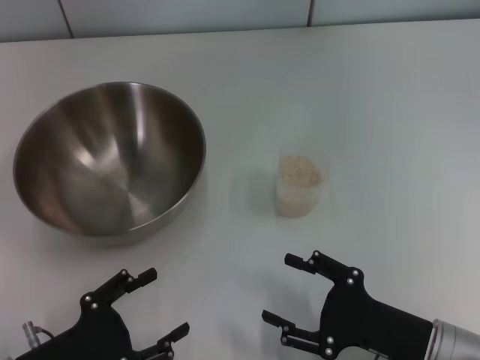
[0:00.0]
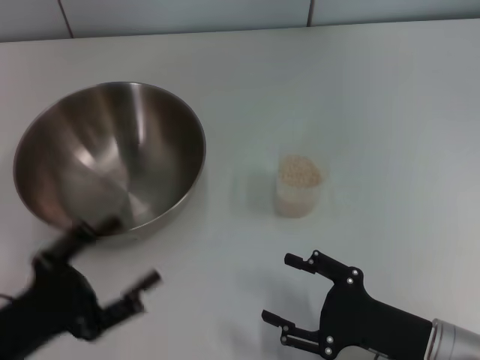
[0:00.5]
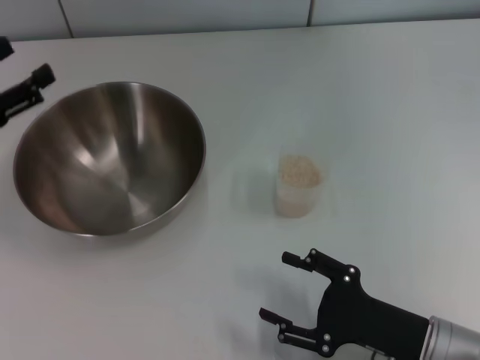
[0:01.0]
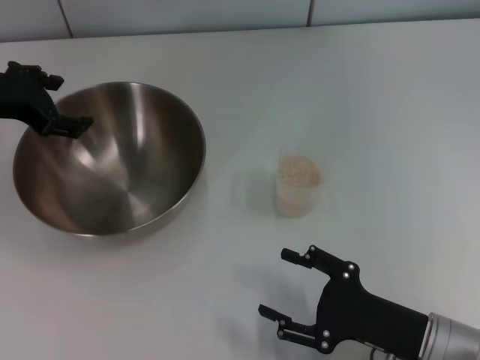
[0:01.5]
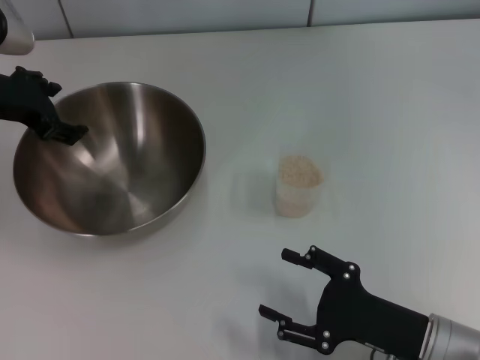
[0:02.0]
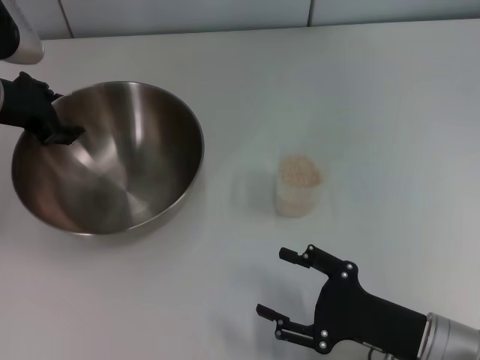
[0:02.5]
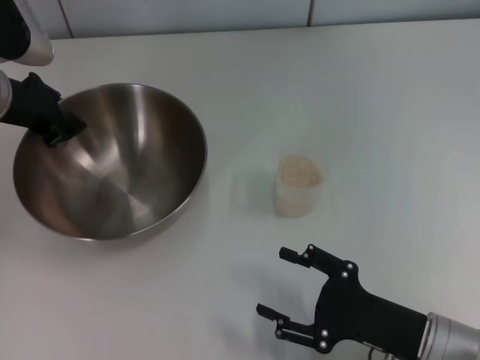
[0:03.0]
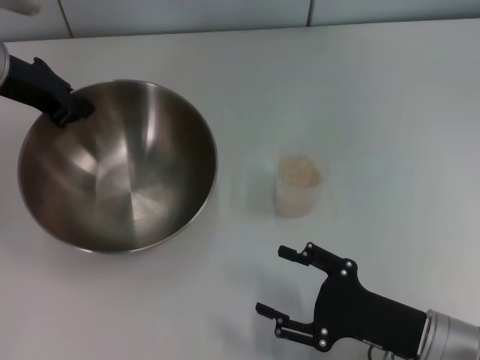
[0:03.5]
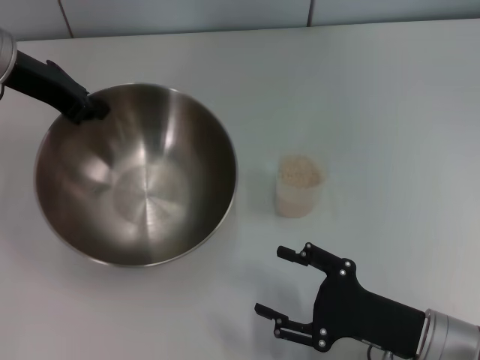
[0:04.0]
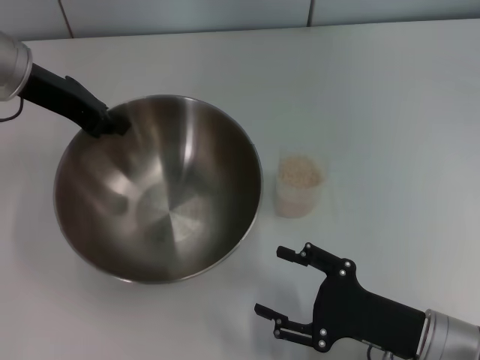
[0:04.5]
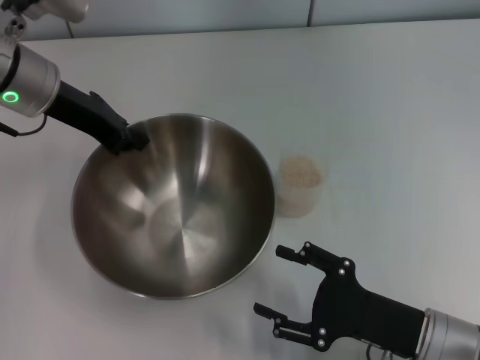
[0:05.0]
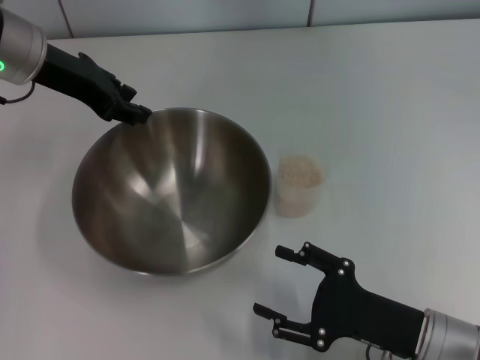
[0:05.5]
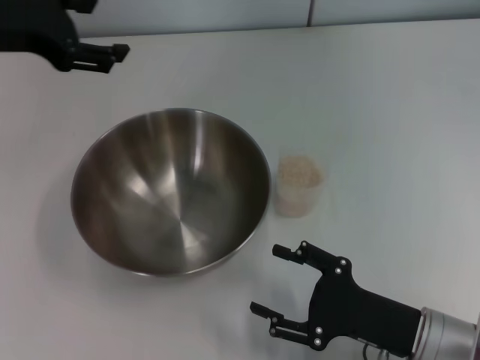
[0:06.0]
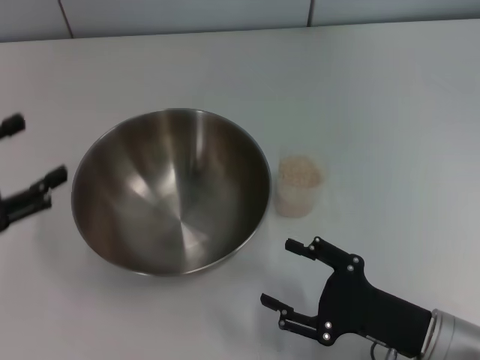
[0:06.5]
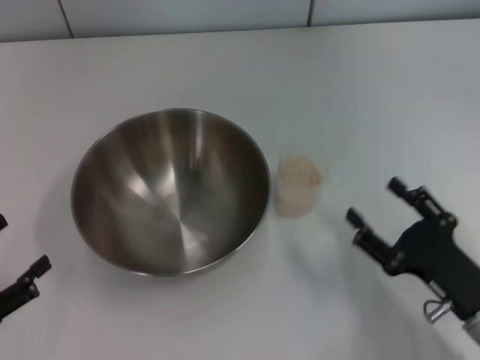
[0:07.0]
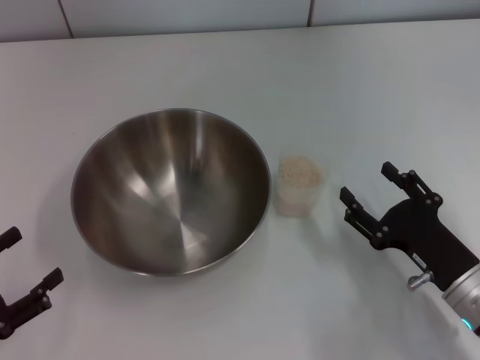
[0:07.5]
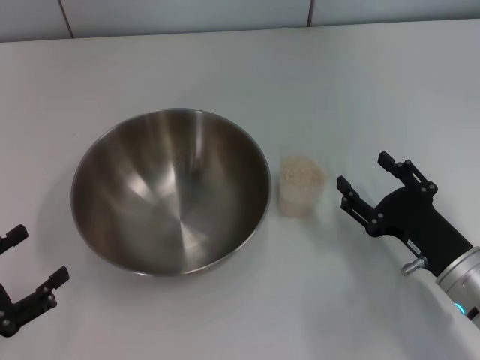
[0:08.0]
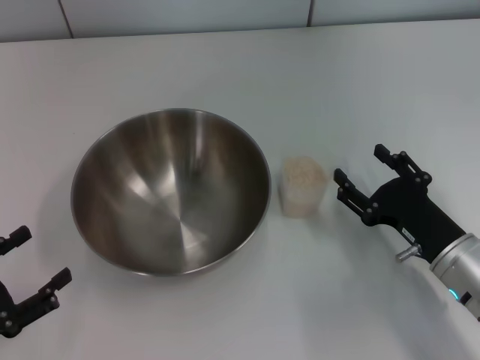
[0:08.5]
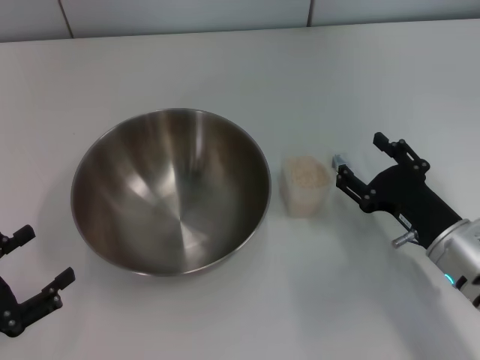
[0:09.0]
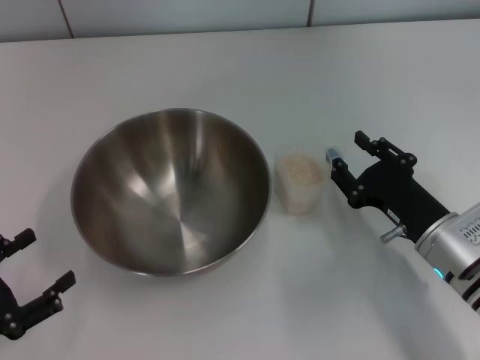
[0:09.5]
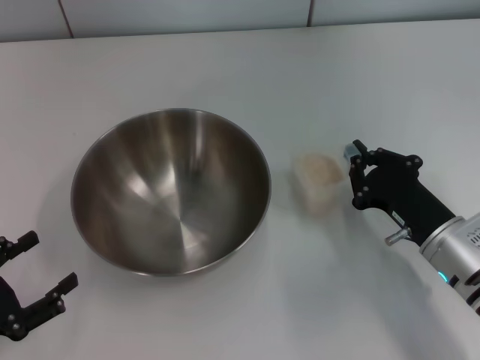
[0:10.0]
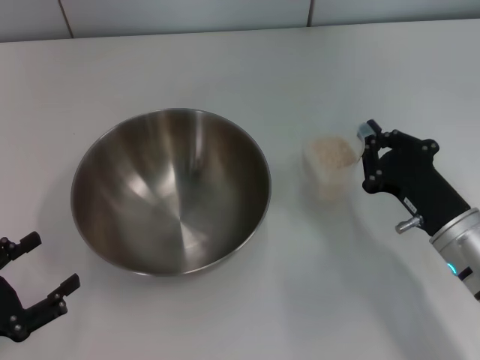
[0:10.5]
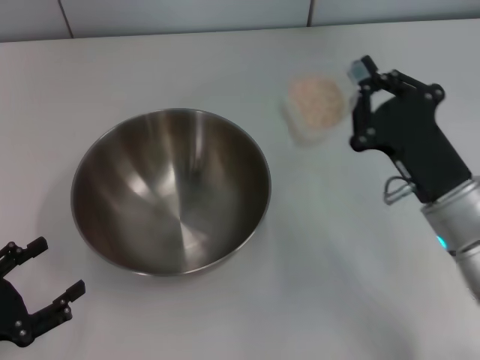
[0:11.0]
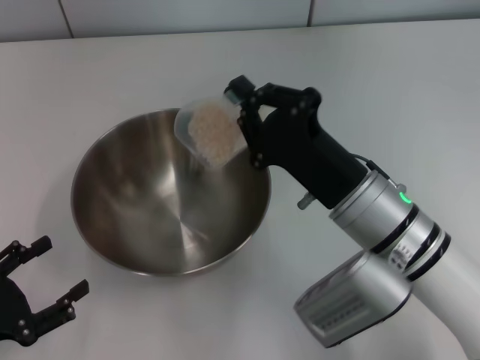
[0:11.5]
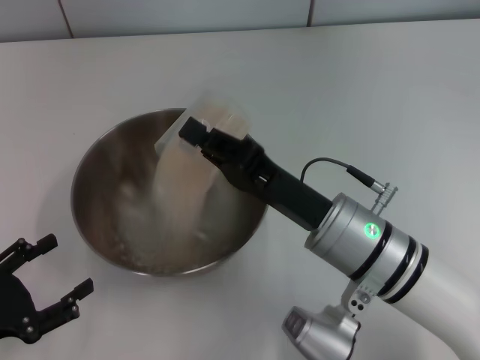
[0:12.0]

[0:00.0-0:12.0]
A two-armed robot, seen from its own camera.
Task of the whole recording: Place the bowl in the middle of the table with one hand and pour the rice from the grain cup into it with the other hand.
Step, 0.0 to 3.5 s: Pick up the bowl with the left gripper.
Step, 4.0 to 5.5 s: Place the bowl in the center of view with the left gripper.
Step, 6.0 to 10.5 s: Pick up the cup with rice in it with the right gripper.
0.0 to 2.0 s: The left gripper shifts some 30 cm forward and upward.
2.0 to 4.0 s: The left gripper closes.
4.0 to 6.0 s: The left gripper is displaced backward by roughly 5 cm, and opens up.
6.0 to 8.0 s: The left gripper shifts roughly 30 cm backward, downward and to the left. The right gripper shifts by about 5 cm.
8.0 to 10.0 s: The right gripper closes.
10.0 to 12.0 s: The right gripper travels to the left and upward by roughly 15 cm.

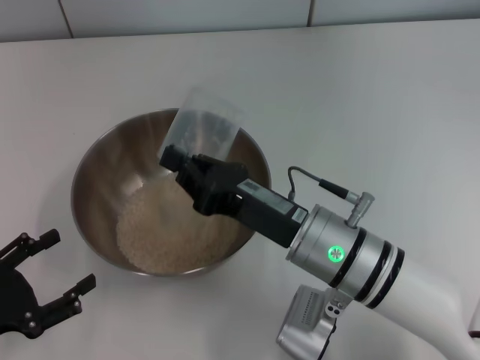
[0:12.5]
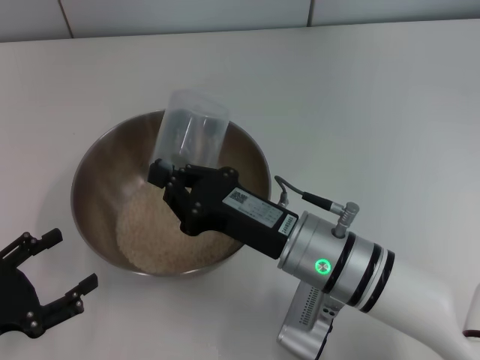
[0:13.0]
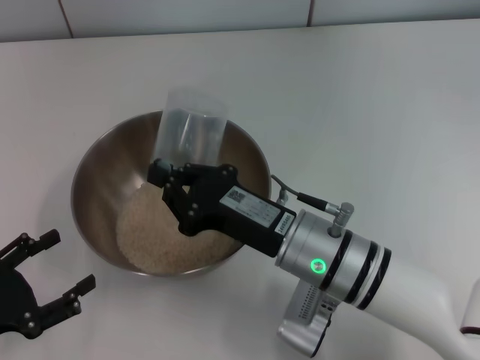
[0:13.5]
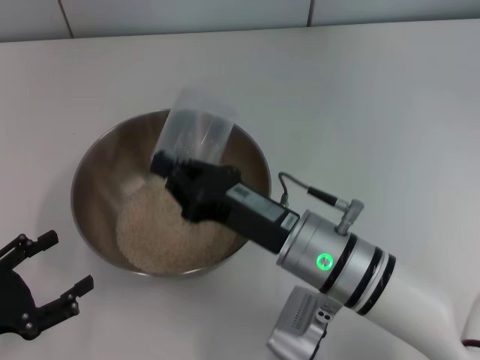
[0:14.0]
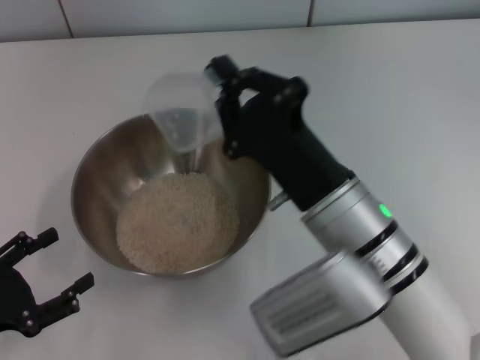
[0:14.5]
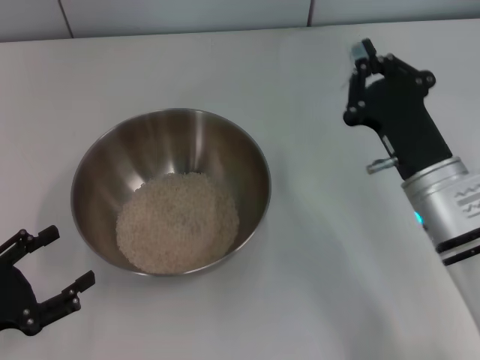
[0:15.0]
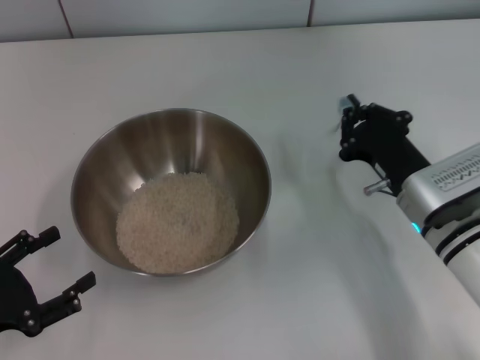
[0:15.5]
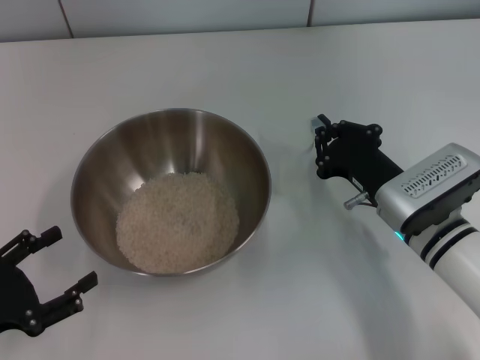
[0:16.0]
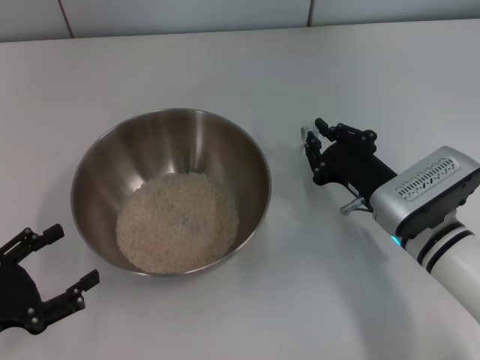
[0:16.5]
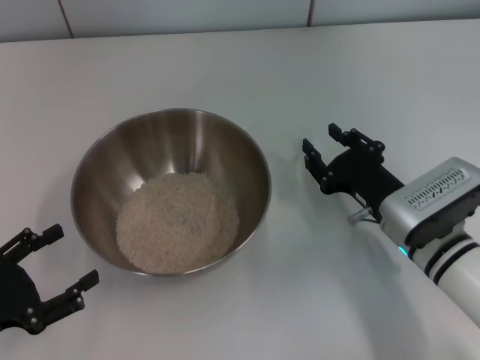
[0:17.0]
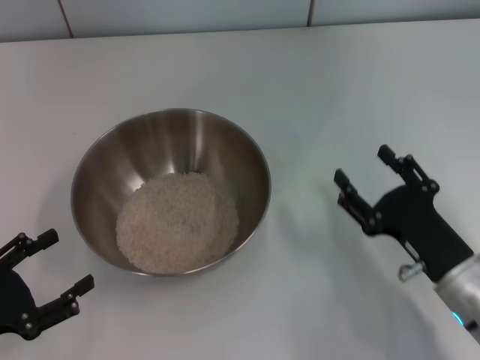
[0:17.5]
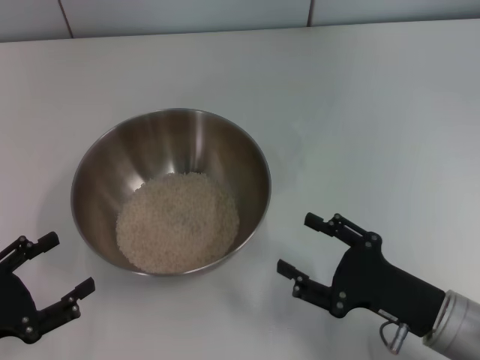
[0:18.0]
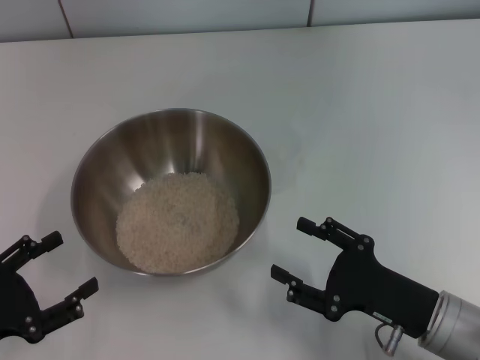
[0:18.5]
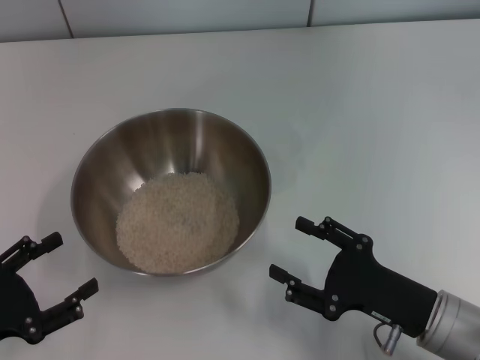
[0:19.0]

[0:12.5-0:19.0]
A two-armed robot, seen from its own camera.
Task of the whole recording: Place the bowl in the middle of the table with one hand and pour the rice from the grain cup into it with the other hand.
Step, 12.5 to 14.5 s: Pour the rice from the cup into the bowl with the right gripper.
Step, 15.0 to 17.0 s: Place the cup on the table with the right gripper.
14.5 to 17.0 s: The right gripper moves to the right and downward, approximately 15 cm, and opens.
17.0 to 19.0 s: The right gripper moves backward, some 10 cm, and opens.

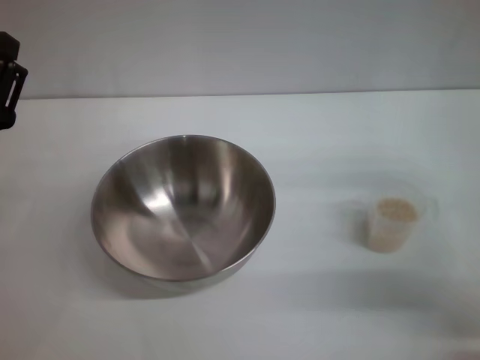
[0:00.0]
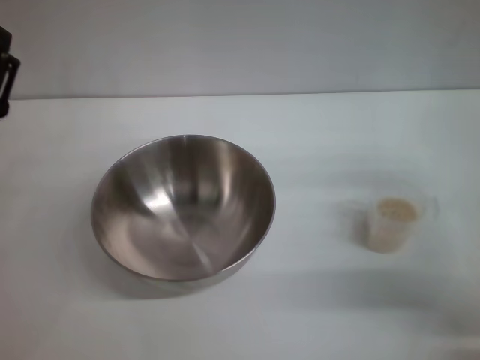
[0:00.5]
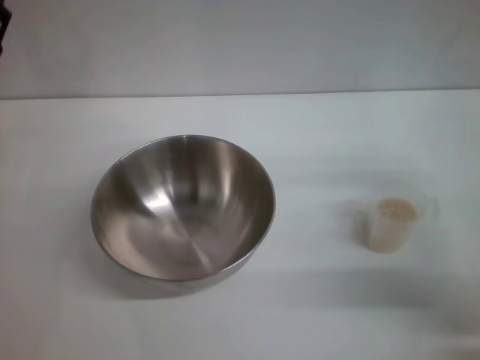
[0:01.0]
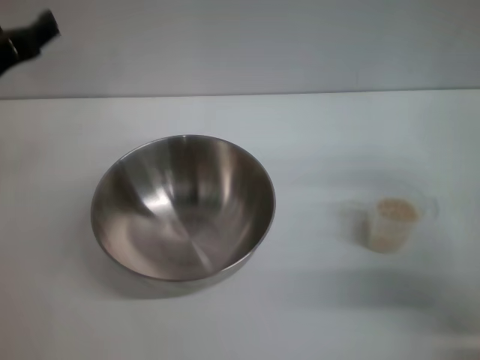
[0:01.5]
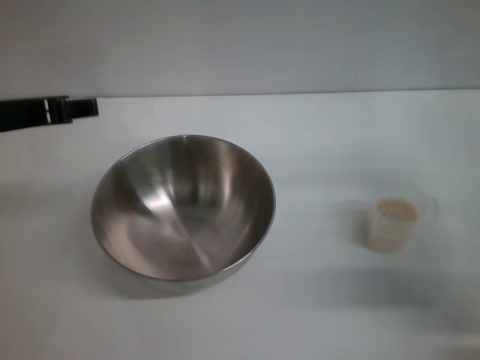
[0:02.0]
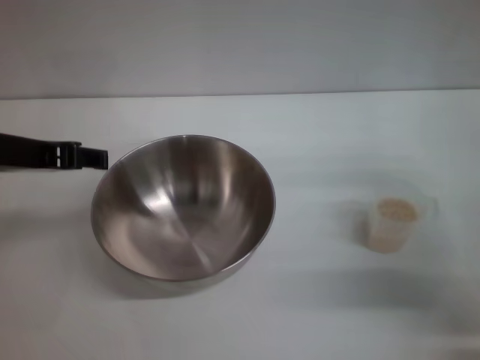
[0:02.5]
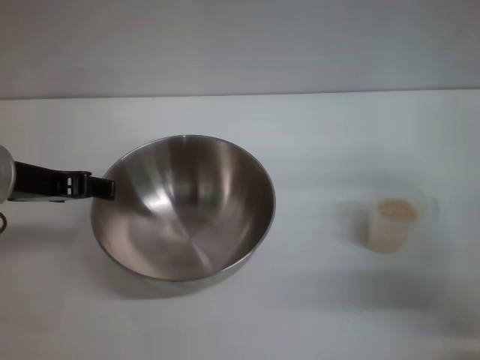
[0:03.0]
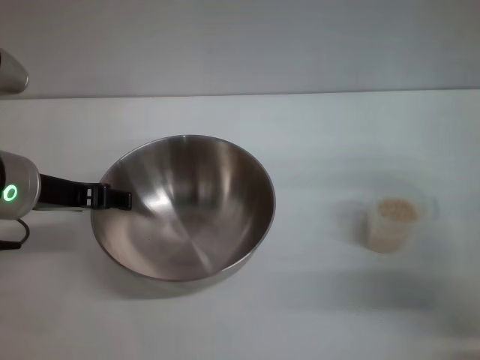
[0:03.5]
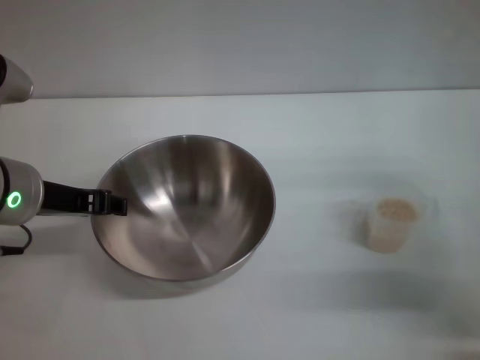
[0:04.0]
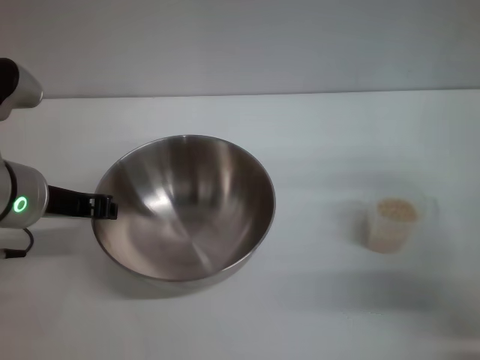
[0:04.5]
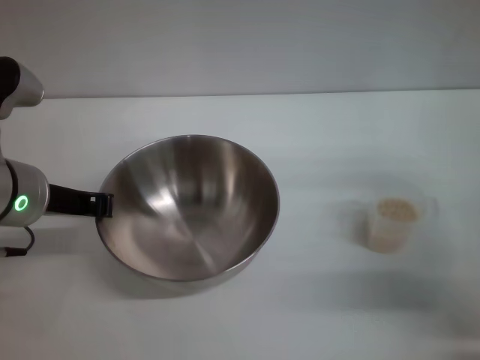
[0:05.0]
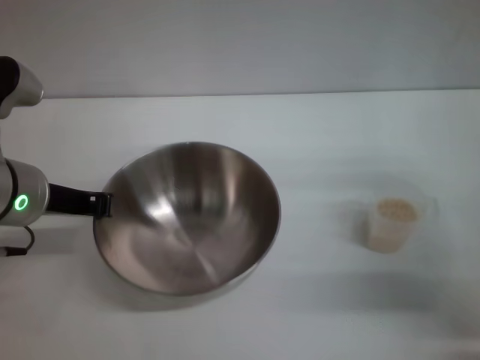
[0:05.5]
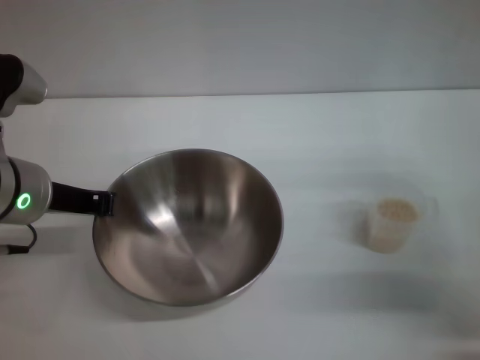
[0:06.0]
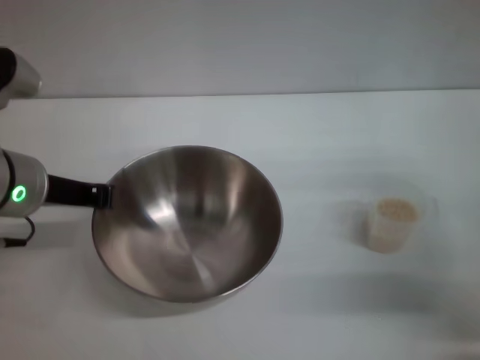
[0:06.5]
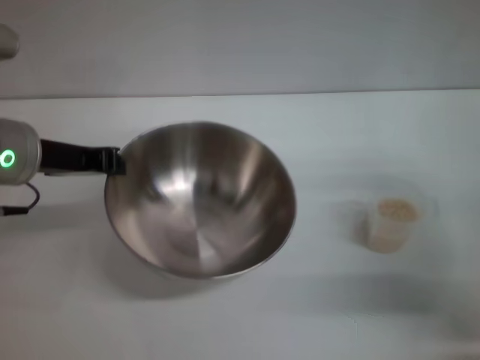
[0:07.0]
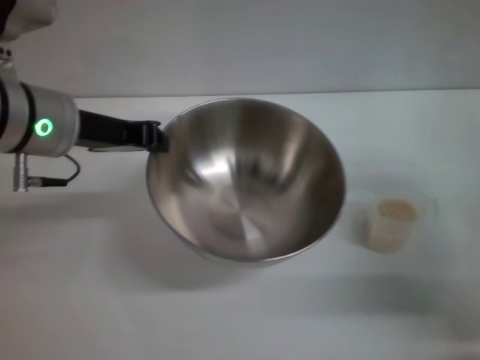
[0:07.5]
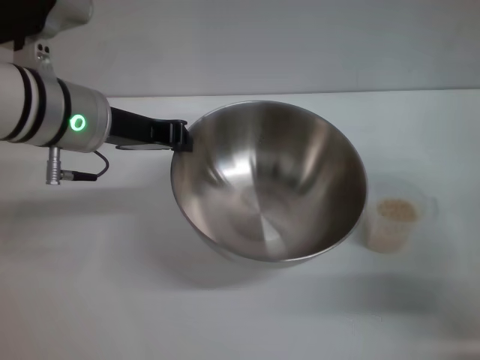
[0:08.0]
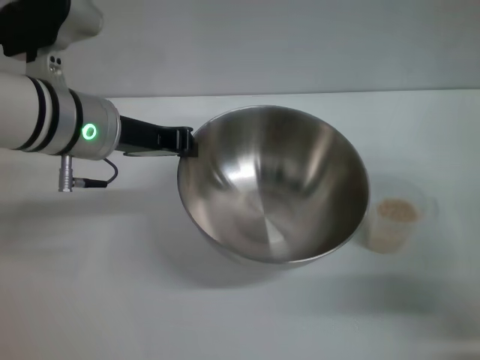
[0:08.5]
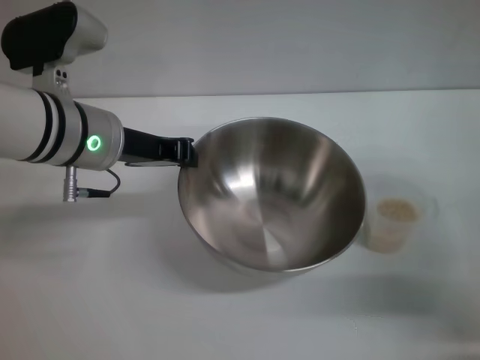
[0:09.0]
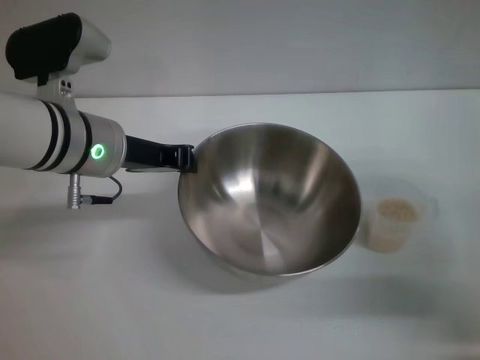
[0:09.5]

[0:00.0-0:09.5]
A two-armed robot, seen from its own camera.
Task of the whole recording: Place the bowl in the middle of the table with one hand and pour the rice from the grain cup into it with the other hand.
Step, 0.0 to 7.0 s: Pick up the bowl with the left gripper.
0.0 to 2.0 s: The left gripper moves upward, some 15 cm.
2.0 to 4.0 s: The left gripper heads downward, covering roughly 5 cm.
4.0 to 5.5 s: The left gripper closes its fingers.
5.5 to 7.5 s: The left gripper moves roughly 5 cm.
7.5 to 9.5 s: The left gripper shifts by roughly 5 cm.
